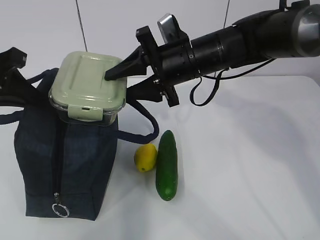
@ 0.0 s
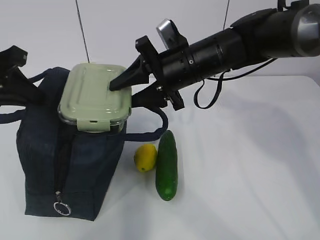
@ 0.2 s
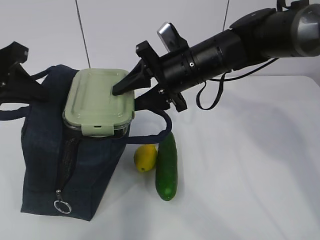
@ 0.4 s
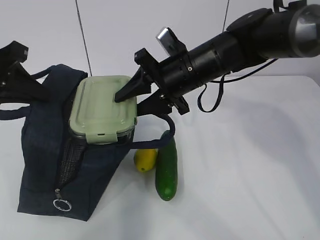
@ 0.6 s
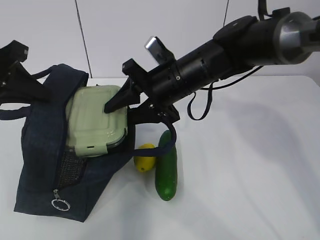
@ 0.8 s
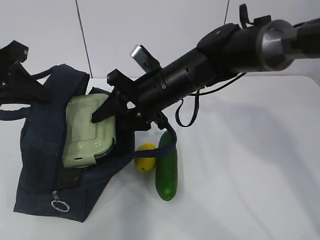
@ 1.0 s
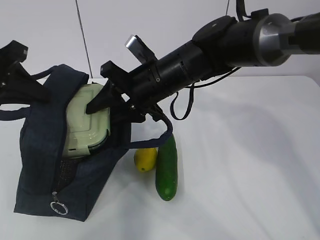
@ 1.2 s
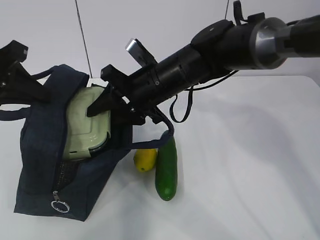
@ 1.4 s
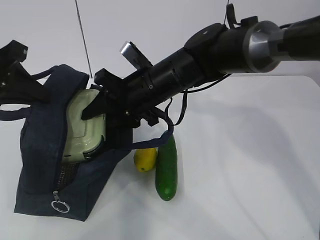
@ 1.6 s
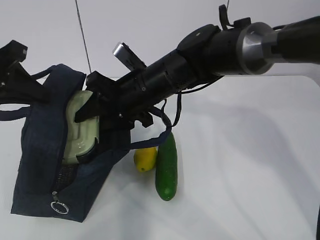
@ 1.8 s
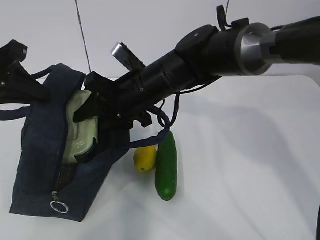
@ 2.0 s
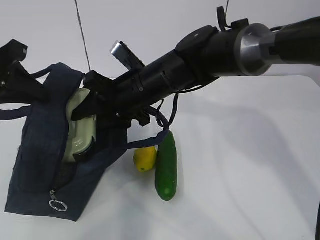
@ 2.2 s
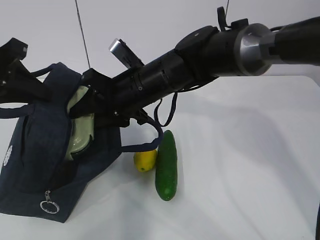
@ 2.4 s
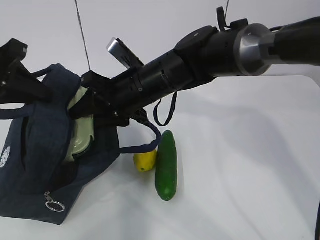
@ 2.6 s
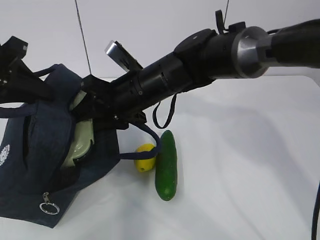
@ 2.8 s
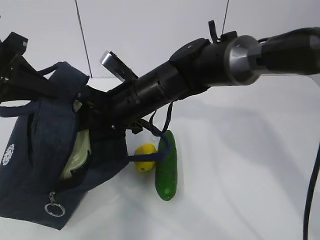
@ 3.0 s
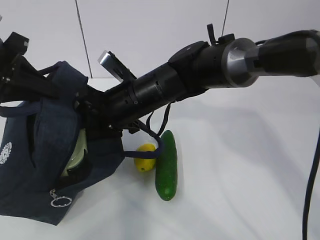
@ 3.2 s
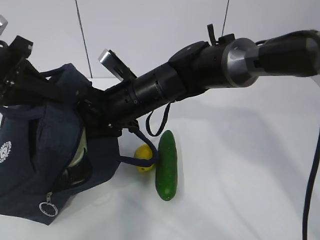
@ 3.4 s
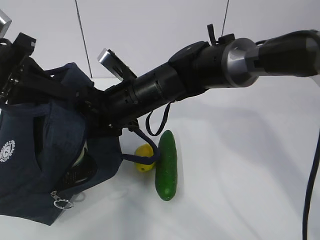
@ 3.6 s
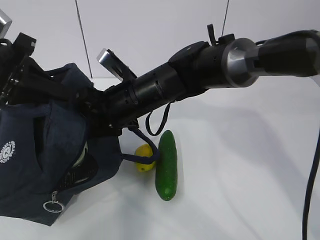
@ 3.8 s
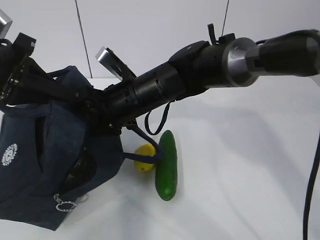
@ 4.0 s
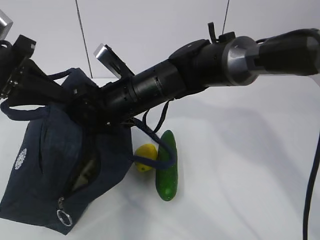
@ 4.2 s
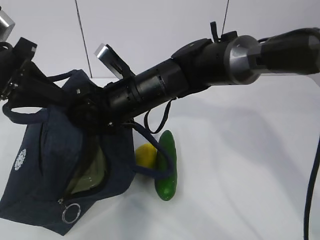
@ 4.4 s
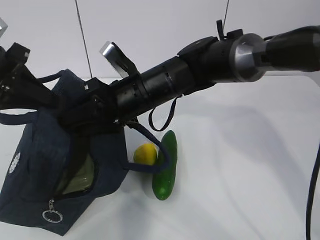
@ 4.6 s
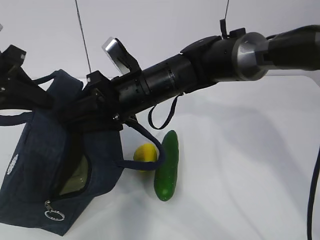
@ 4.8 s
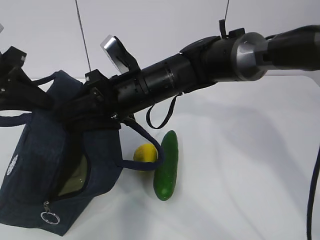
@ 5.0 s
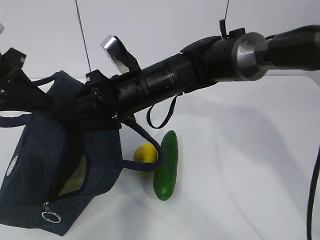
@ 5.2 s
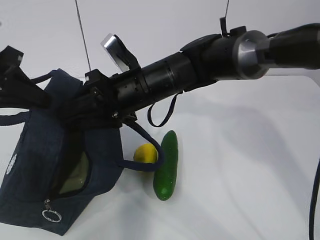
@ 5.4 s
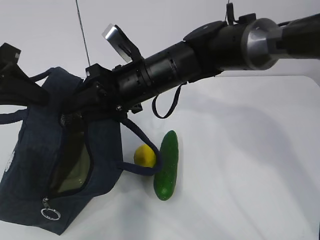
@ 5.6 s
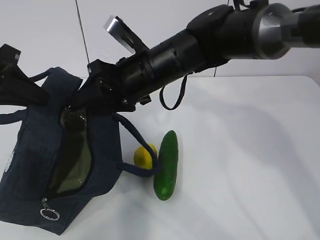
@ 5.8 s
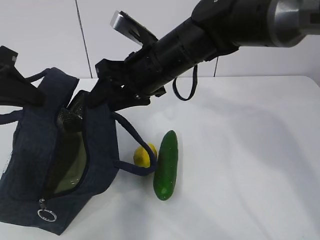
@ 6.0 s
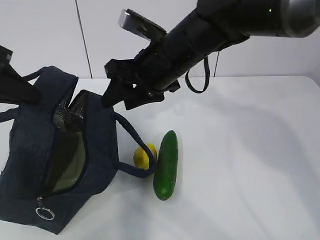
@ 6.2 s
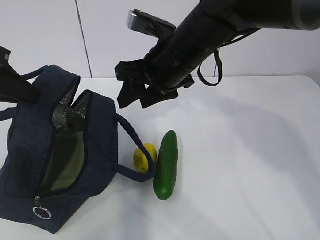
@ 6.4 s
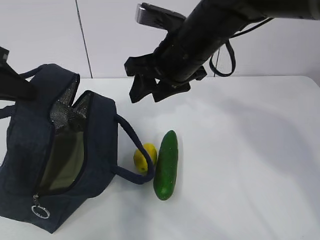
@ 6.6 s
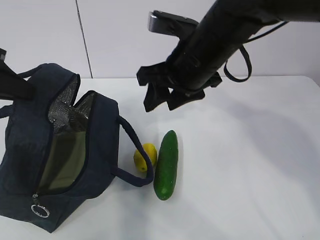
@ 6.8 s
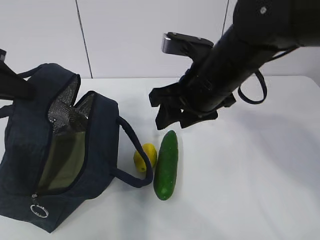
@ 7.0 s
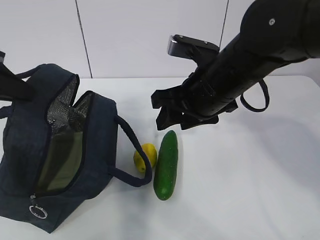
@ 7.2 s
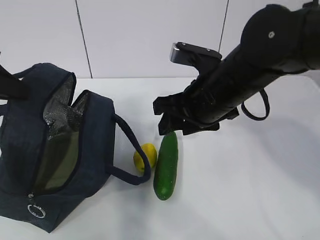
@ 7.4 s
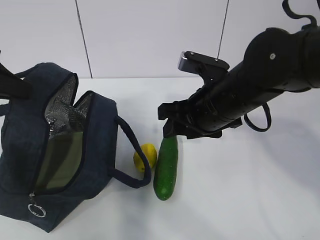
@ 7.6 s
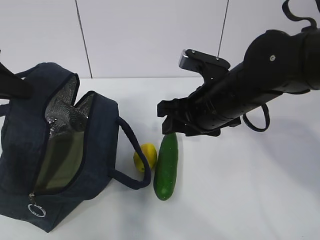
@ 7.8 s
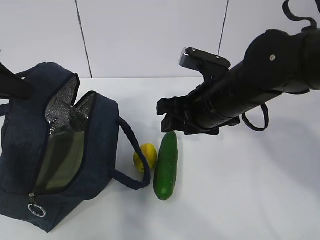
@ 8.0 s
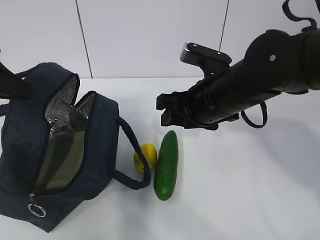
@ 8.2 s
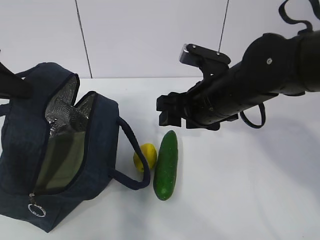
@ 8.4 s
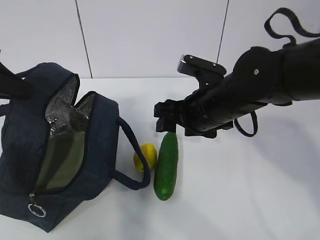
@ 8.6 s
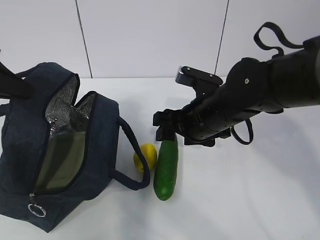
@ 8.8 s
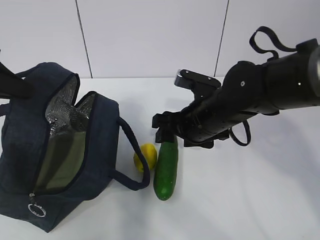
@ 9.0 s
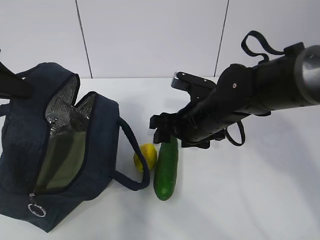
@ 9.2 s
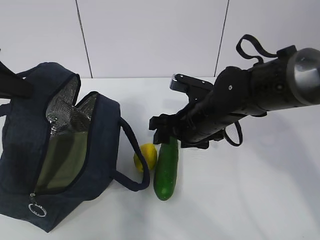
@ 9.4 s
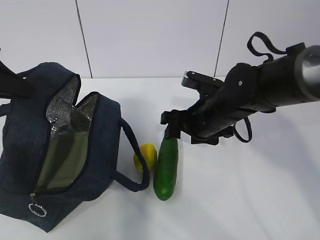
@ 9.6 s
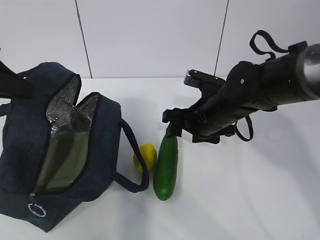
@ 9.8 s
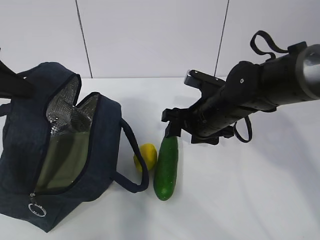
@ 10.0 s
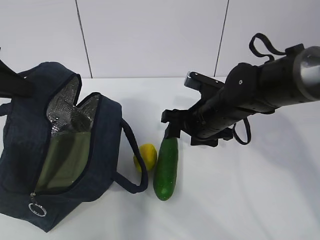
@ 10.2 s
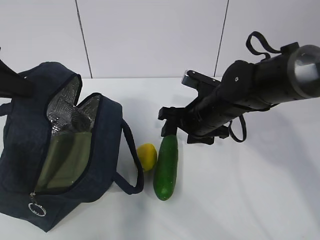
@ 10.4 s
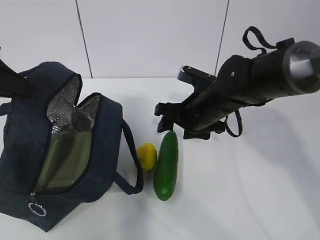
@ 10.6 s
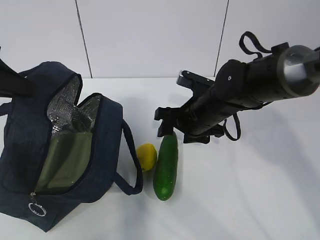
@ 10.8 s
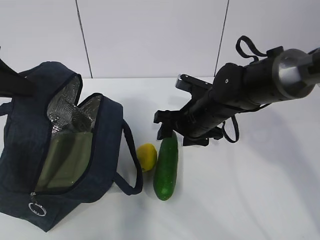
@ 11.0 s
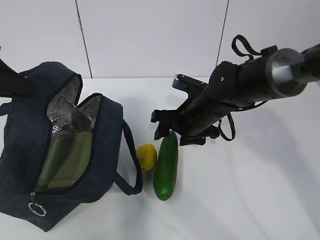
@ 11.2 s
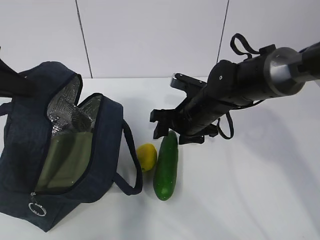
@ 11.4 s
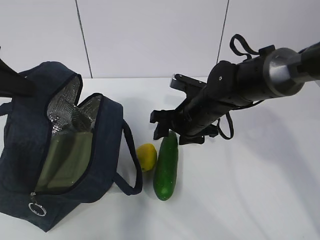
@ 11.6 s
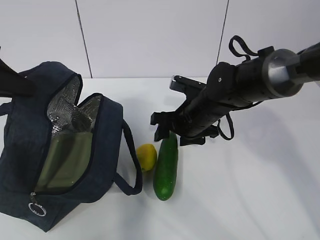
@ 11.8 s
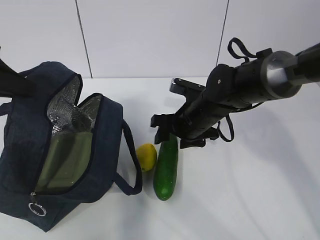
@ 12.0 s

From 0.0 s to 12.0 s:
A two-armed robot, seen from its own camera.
Step, from 0.0 s to 8.2 s: Grab the cucumber with your right hand.
From 0.0 s to 1.6 s: The right gripper travels to the left by approximately 5 cm.
From 3.0 s to 4.4 s: The grippers make only small movements.
From 4.4 s to 6.0 s: The right gripper travels upward by roughly 5 cm.
From 6.0 s to 7.6 s: The right gripper heads to the right and backward, covering approximately 10 cm.
From 7.6 s to 9.0 s: The right gripper changes place by roughly 5 cm.
From 9.0 s to 10.4 s: There are only small adjustments of the grippers.
From 10.4 s to 12.0 s: The grippers move only a little.

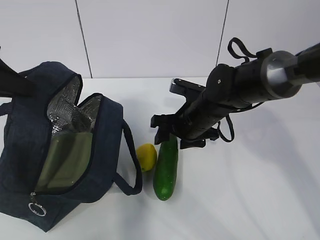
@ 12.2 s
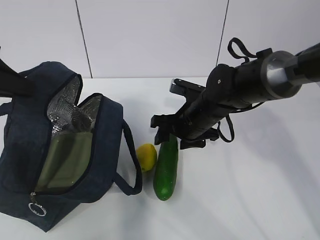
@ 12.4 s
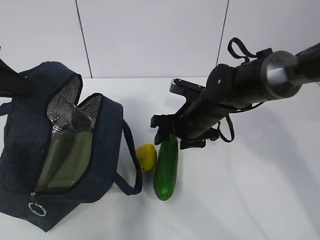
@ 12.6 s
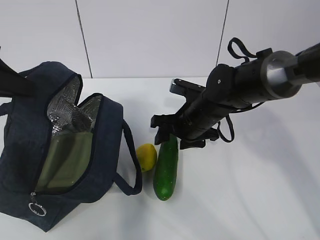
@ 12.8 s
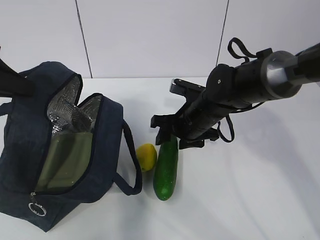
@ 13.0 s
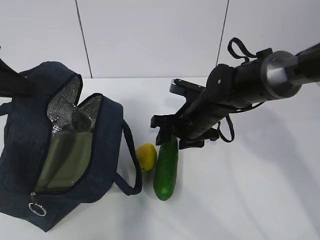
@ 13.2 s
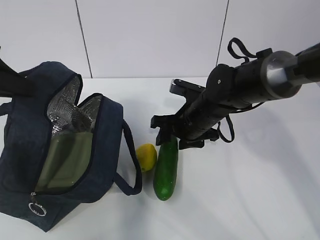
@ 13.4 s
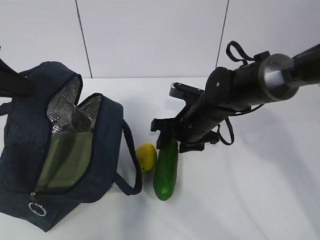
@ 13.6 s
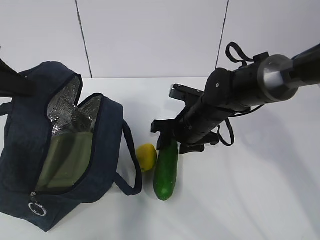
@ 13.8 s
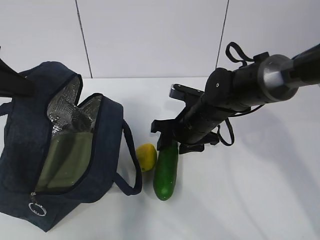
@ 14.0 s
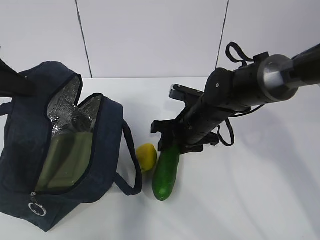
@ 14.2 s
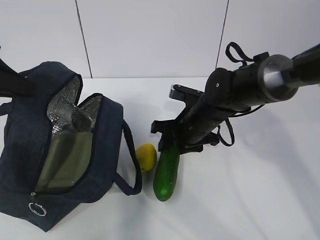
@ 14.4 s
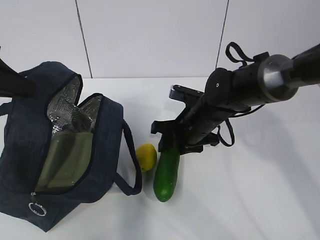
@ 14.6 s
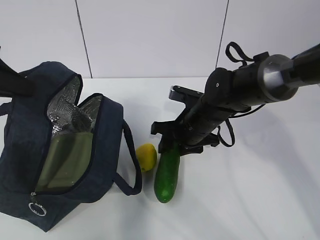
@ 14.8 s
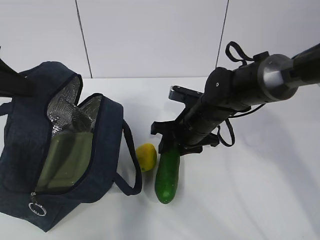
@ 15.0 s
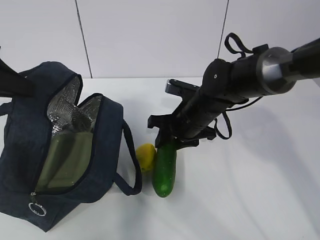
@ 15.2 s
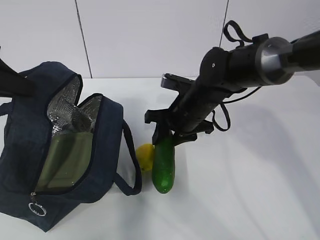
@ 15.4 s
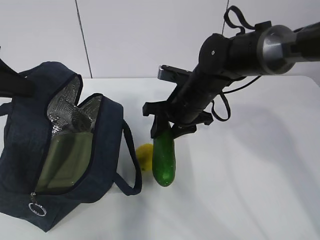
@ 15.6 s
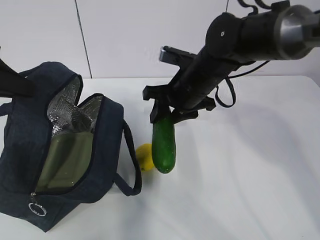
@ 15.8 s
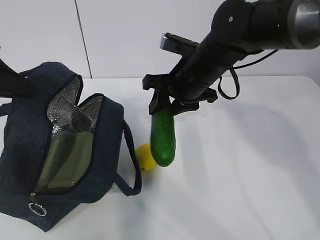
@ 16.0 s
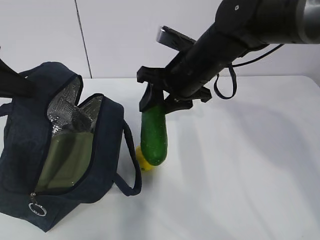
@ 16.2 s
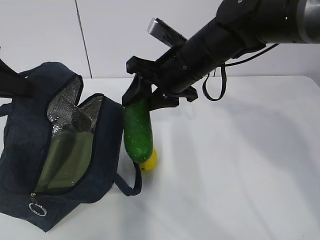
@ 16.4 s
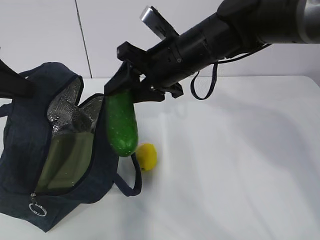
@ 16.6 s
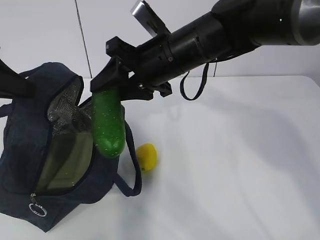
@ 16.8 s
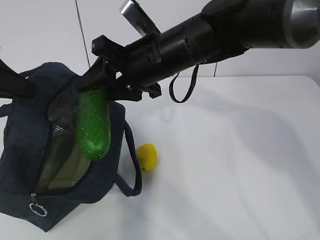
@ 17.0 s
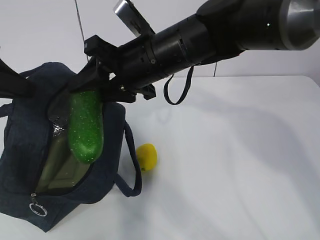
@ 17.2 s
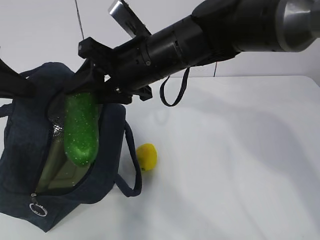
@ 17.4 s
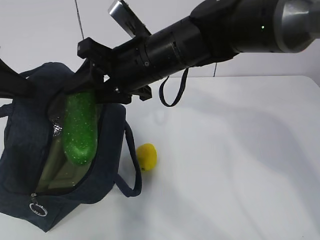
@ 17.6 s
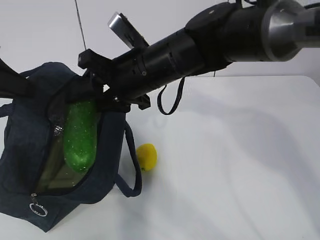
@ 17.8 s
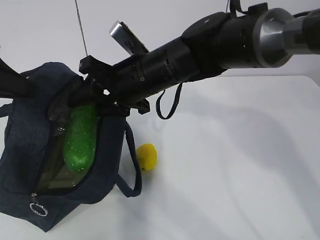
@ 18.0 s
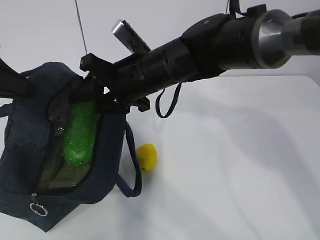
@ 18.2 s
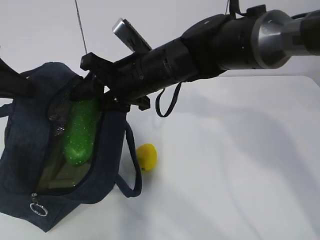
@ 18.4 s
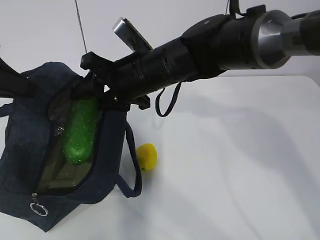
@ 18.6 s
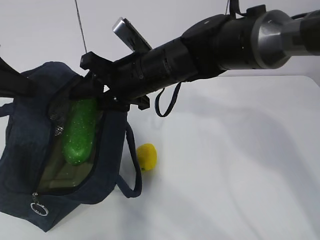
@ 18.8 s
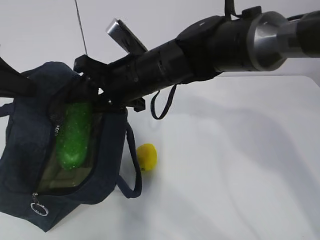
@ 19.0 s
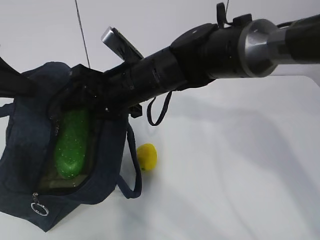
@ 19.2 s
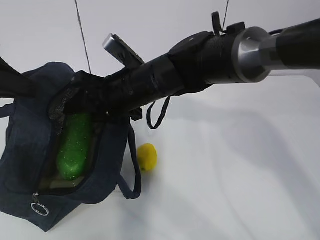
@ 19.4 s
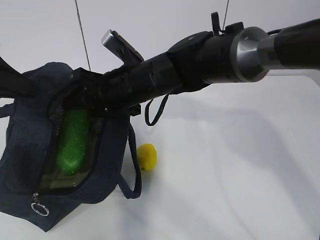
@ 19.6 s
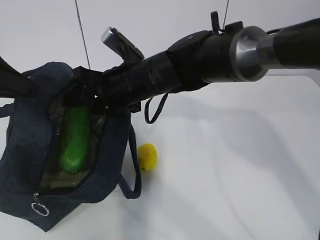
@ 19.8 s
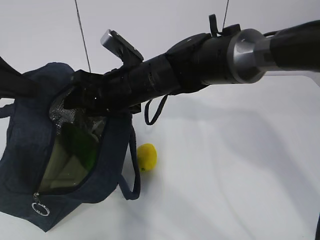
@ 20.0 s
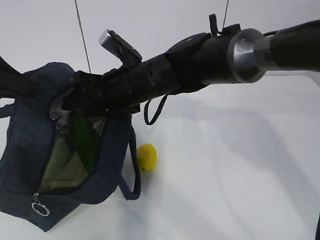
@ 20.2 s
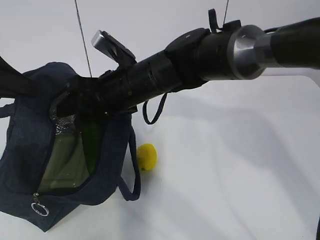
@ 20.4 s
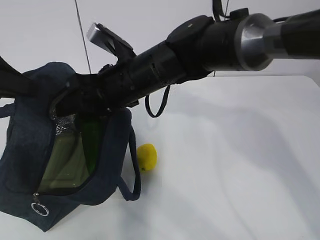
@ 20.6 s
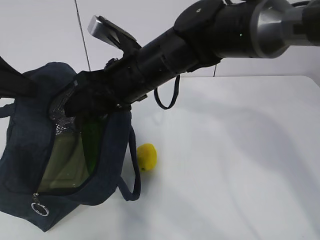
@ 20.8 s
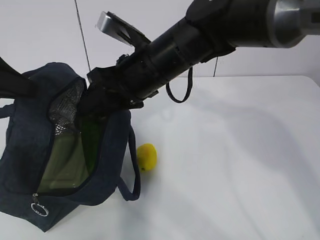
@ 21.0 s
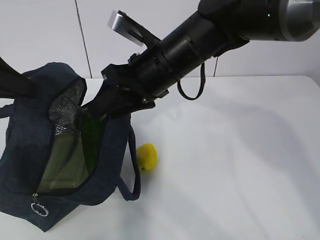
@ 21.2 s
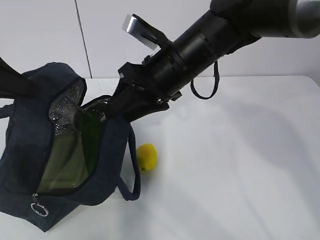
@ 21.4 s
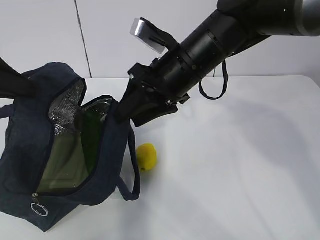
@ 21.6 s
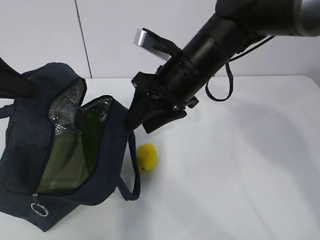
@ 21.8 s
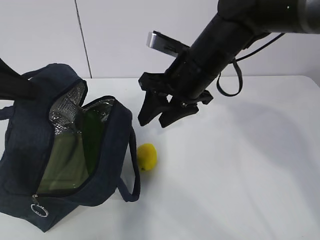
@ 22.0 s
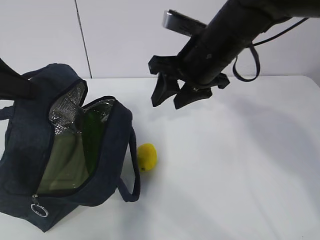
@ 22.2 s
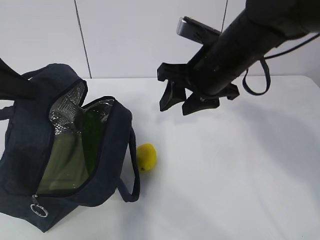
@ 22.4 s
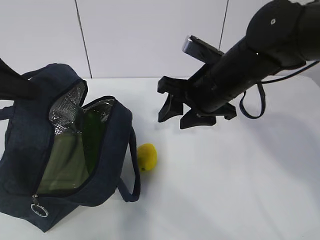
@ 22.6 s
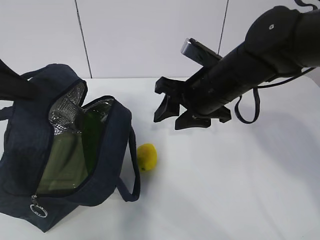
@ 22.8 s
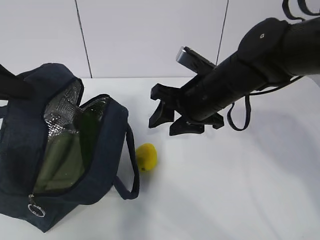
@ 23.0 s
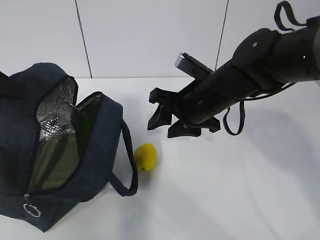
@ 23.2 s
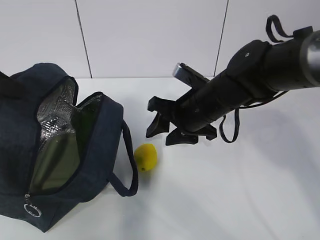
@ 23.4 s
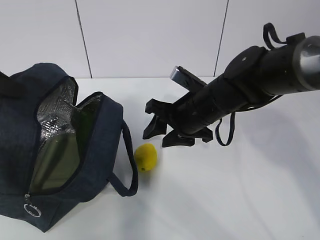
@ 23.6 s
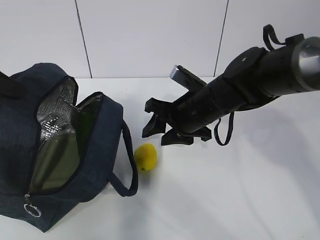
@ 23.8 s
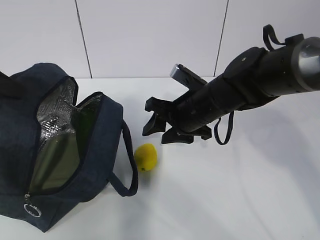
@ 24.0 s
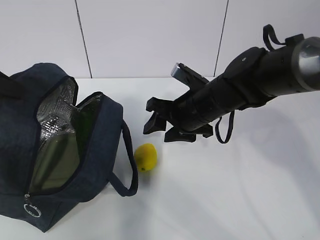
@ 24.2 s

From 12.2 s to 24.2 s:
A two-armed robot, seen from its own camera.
Step, from 13.0 s to 19.0 s: Grab the lemon with your right hand.
From 12.2 s to 15.2 s: The two grippers keep their place.
From 15.2 s to 16.6 s: The right gripper shifts some 15 cm upward.
From 16.6 s to 18.2 s: The right gripper moves to the left, some 5 cm.
From 18.2 s to 19.8 s: There are only small adjustments of the grippers.
From 19.8 s to 21.2 s: The right gripper moves approximately 5 cm.
From 21.2 s to 22.6 s: The right gripper goes roughly 5 cm to the right.
From 22.6 s to 24.2 s: The right gripper is displaced downward by about 5 cm.
